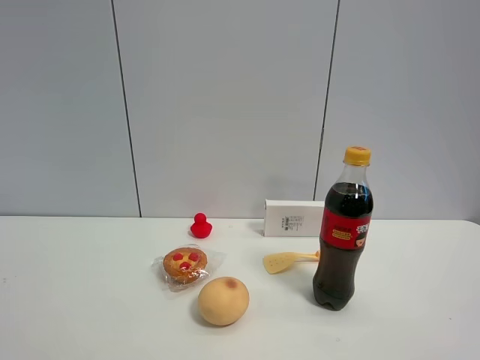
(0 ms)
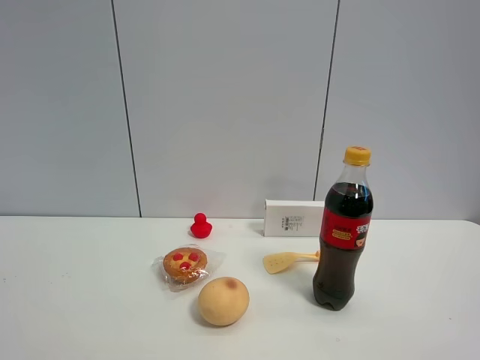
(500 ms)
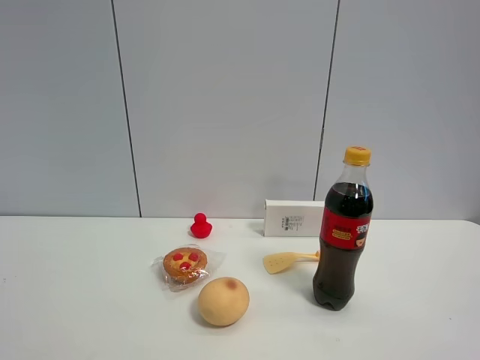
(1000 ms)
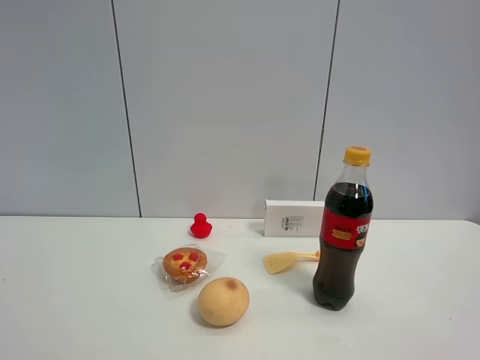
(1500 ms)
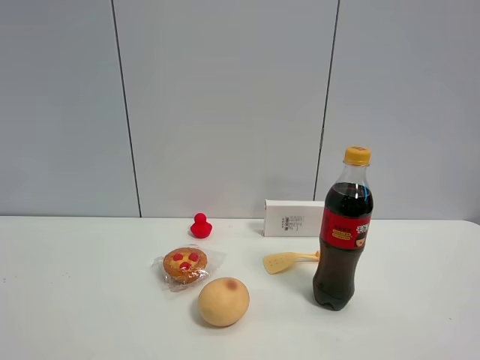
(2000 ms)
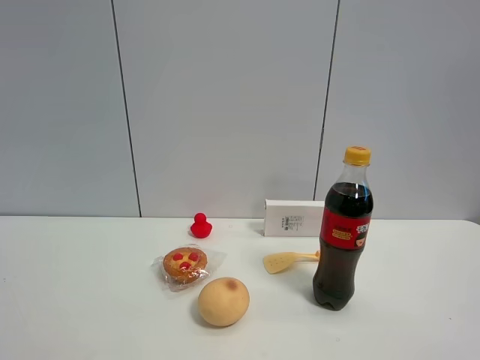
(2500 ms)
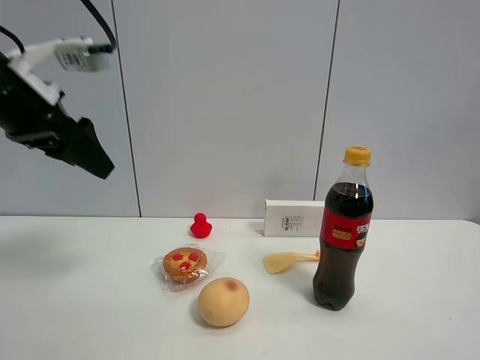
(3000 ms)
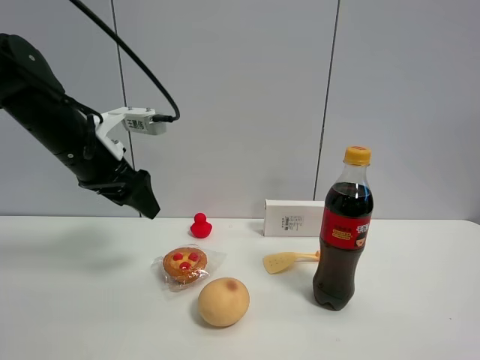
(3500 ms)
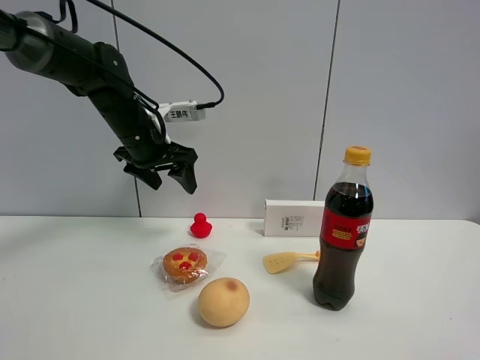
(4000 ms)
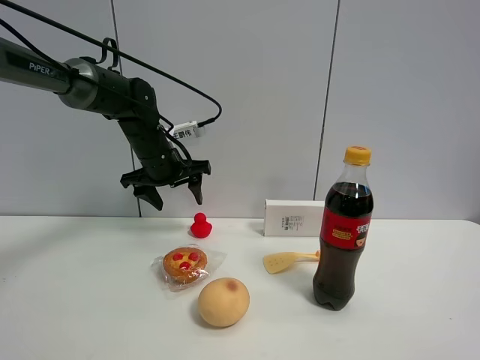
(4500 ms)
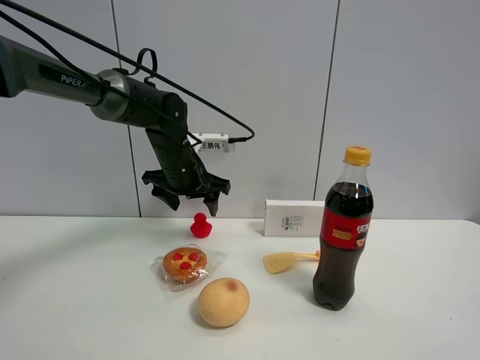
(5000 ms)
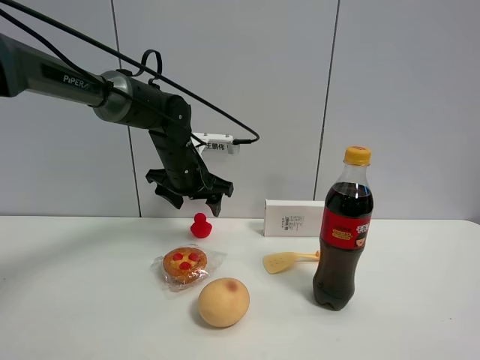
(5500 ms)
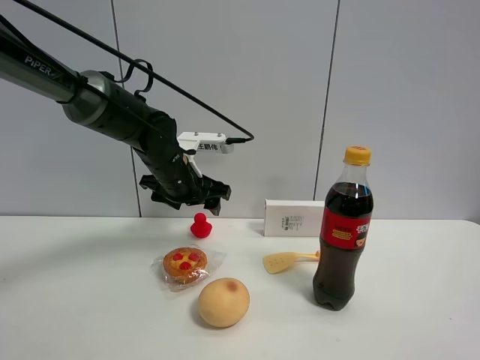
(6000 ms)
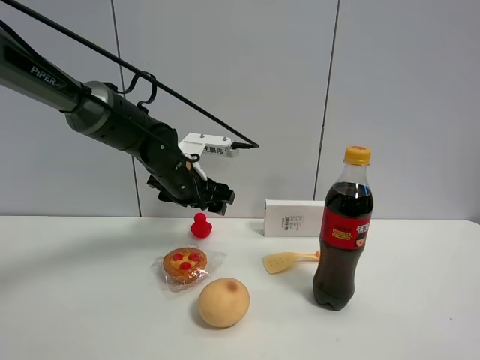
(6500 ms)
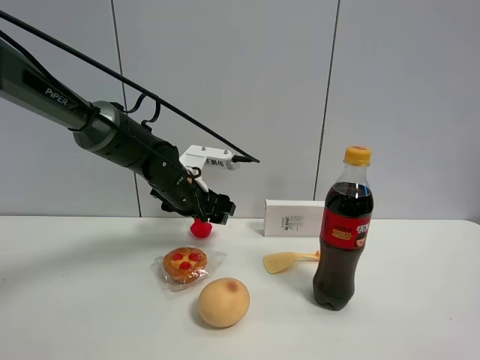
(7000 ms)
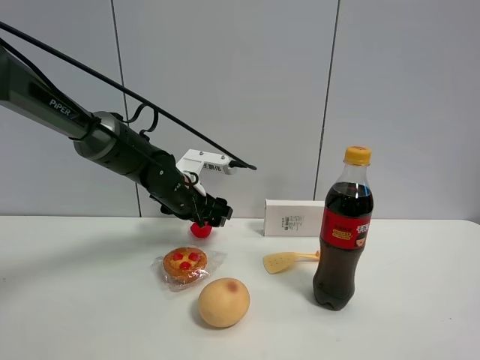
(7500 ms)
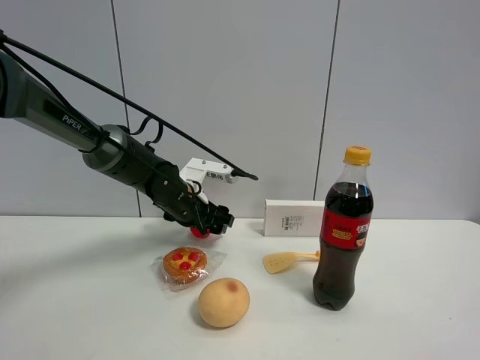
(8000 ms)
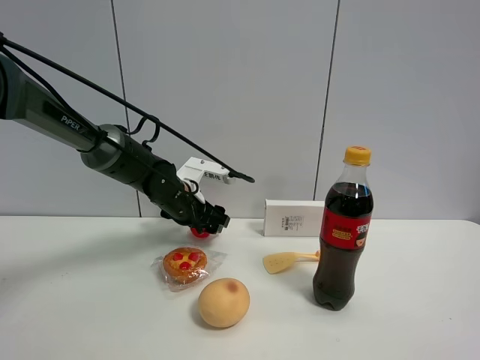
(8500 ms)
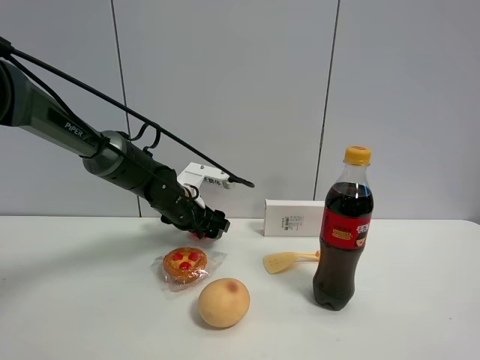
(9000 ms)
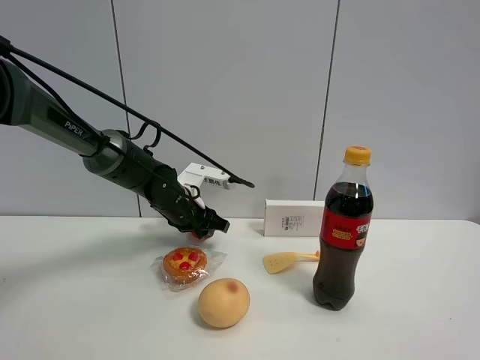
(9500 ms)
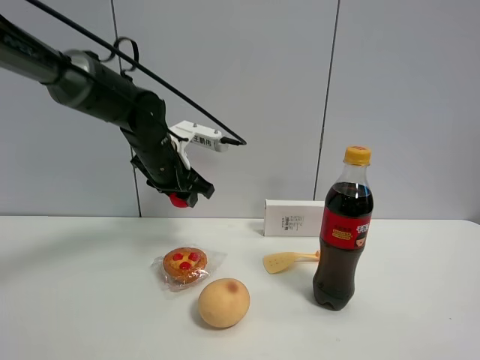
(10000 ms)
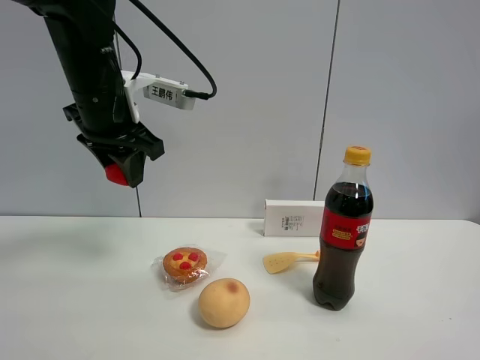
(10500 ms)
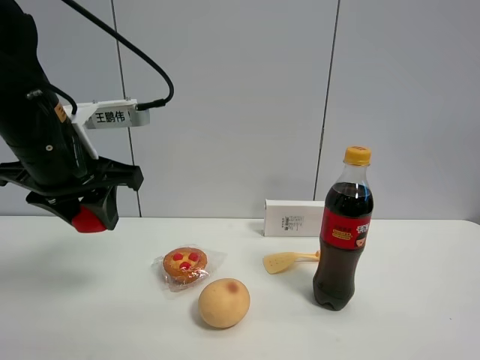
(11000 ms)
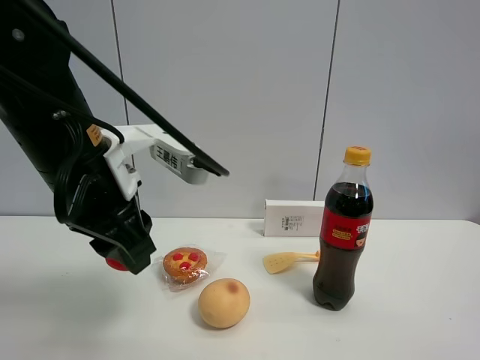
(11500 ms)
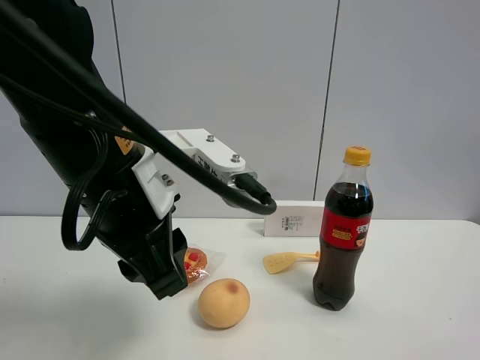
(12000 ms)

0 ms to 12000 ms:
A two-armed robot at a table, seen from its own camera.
Task of the whole recording: the gripper move the object.
Step, 0 ms to 9500 ms: Grasp the red duck with the left gripper.
2000 ms to 4000 ms: The left gripper travels forward by about 50 cm.
4000 ms to 6000 ms: The left gripper is displaced downward and to the right by approximately 10 cm.
6000 ms to 8000 ms: The left gripper heads downward, covering roughly 5 cm.
8000 ms to 10000 ms: The left gripper heads upward, covering roughly 10 cm, and closes its fingers.
10000 ms to 12000 ms: The left gripper shifts about 25 cm backward.

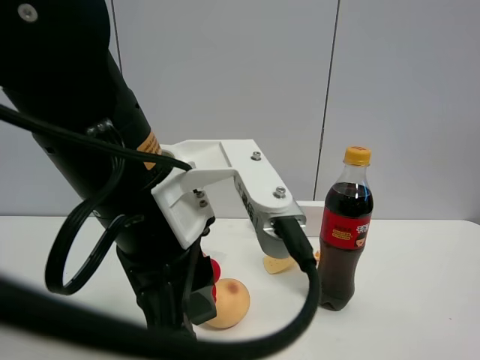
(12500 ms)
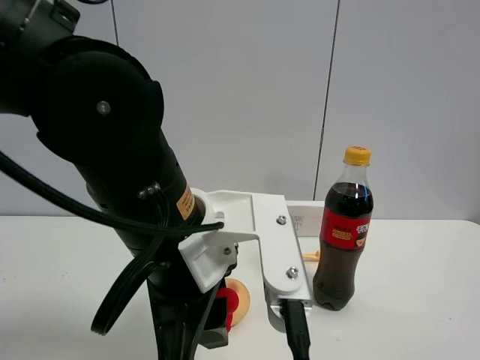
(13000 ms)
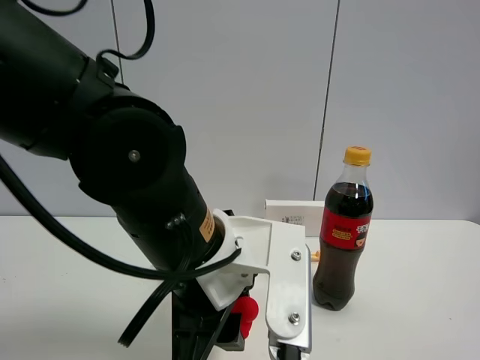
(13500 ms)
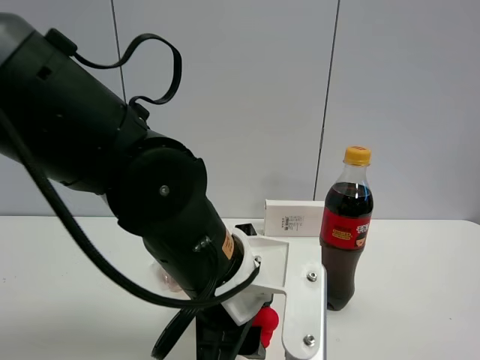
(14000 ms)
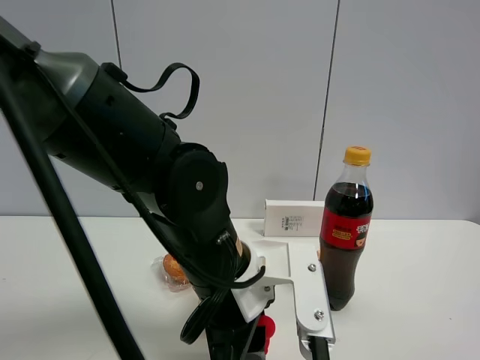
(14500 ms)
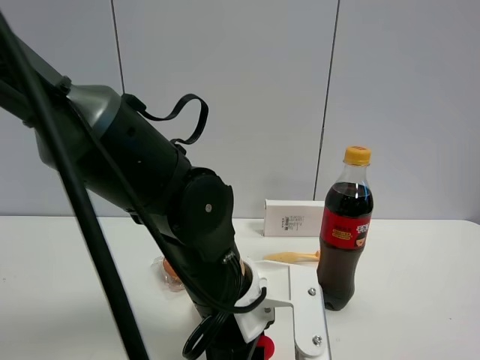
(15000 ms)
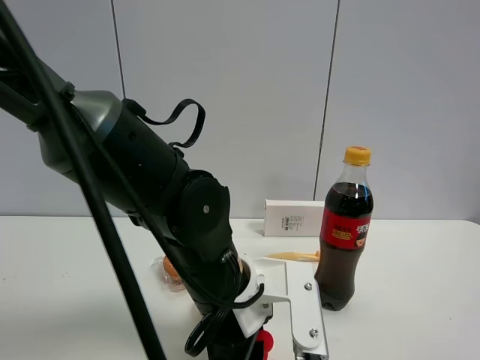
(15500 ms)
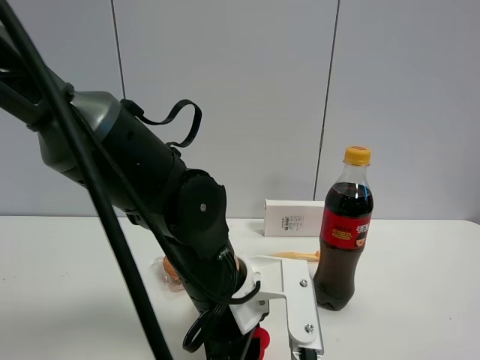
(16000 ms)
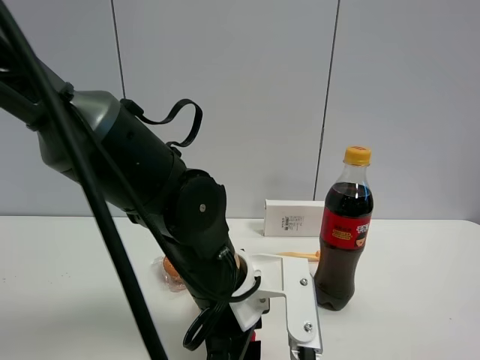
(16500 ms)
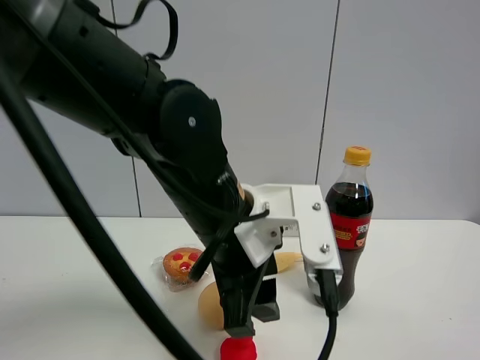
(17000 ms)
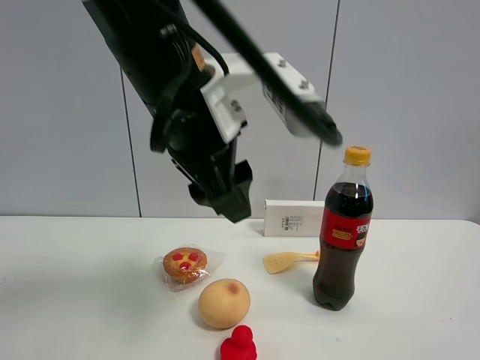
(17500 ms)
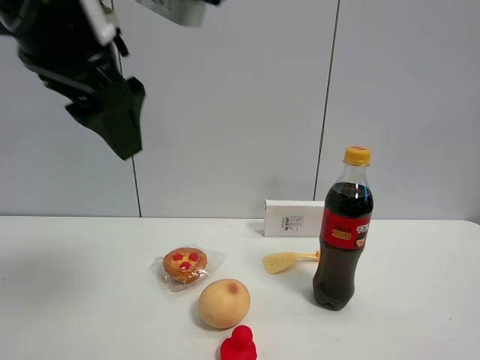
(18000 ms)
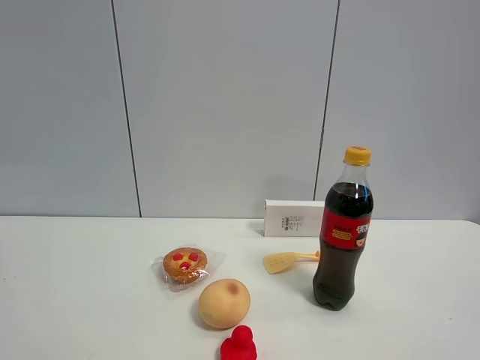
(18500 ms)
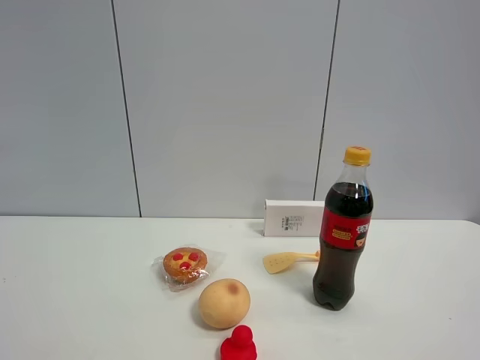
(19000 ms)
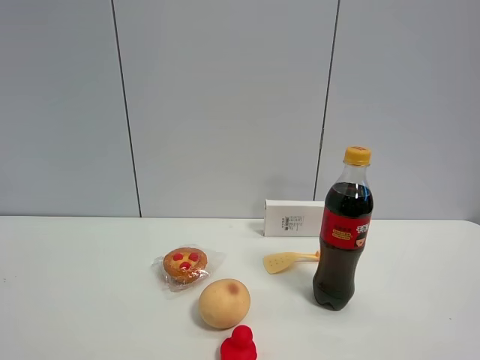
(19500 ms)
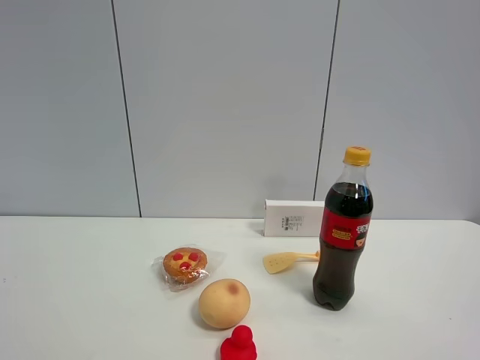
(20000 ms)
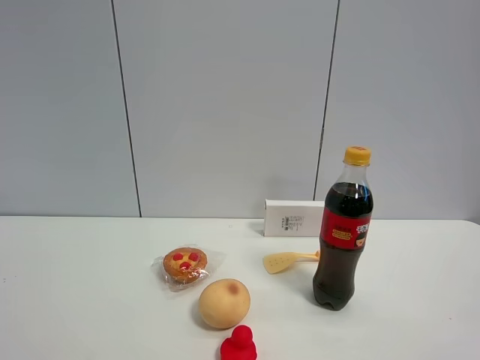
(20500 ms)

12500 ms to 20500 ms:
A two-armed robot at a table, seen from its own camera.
Task of the whole recording: the gripper move the object.
Step, 12500 ms to 16500 ms: Place the red duck on the table with the left gripper.
12500 ms to 14500 ms: The left gripper is displaced downward by about 10 cm.
14500 ms to 16500 ms: The left gripper opens up.
16500 ms to 18500 ms: The left gripper shifts approximately 40 cm upward and to the left, and opens up.

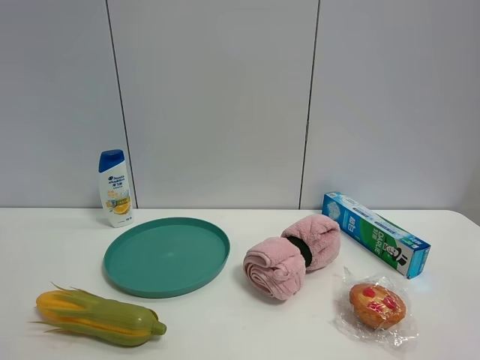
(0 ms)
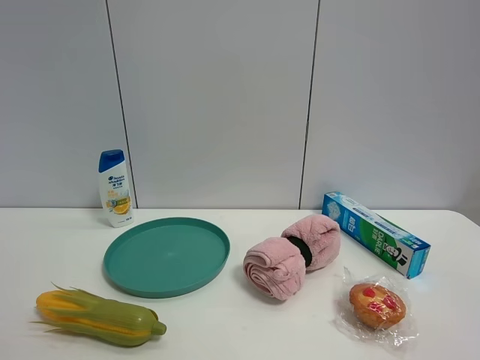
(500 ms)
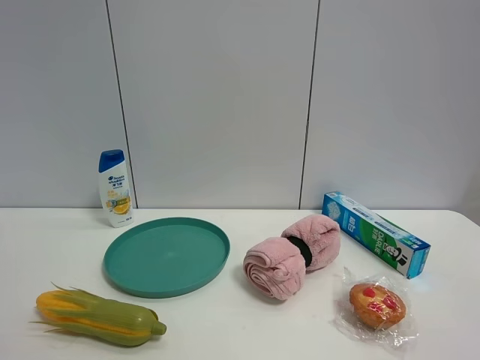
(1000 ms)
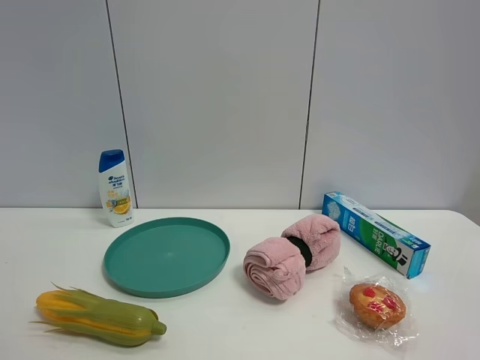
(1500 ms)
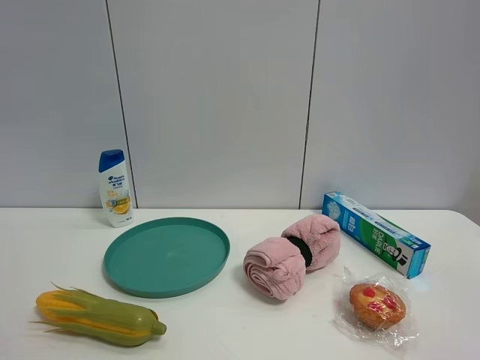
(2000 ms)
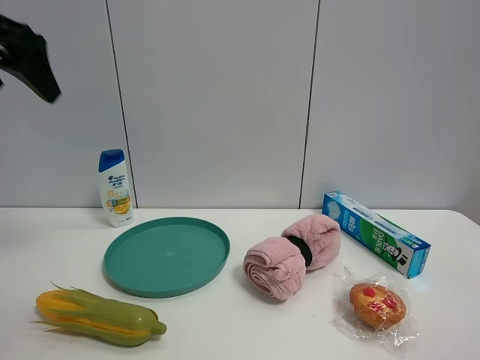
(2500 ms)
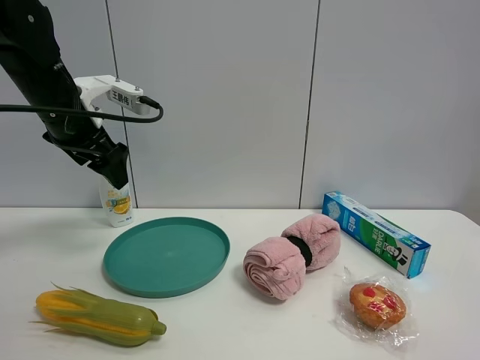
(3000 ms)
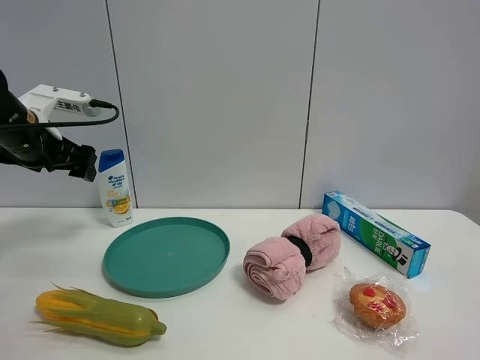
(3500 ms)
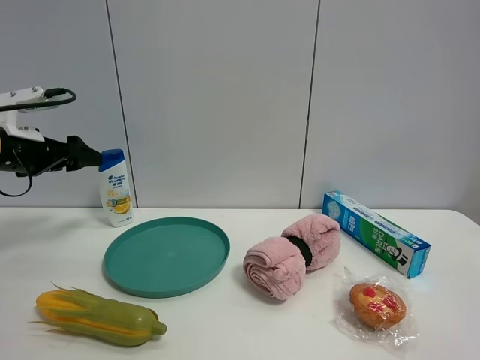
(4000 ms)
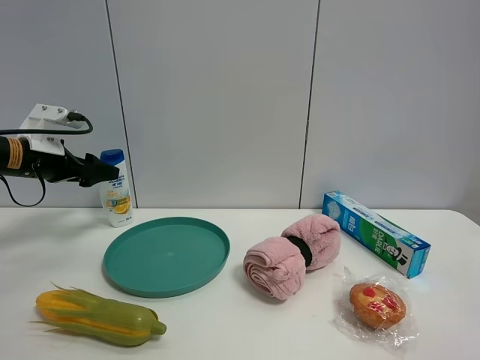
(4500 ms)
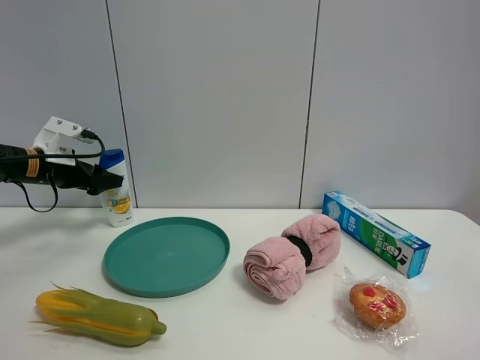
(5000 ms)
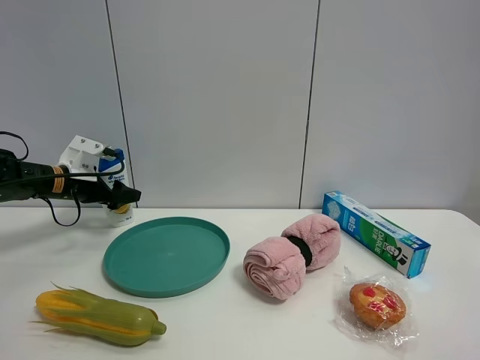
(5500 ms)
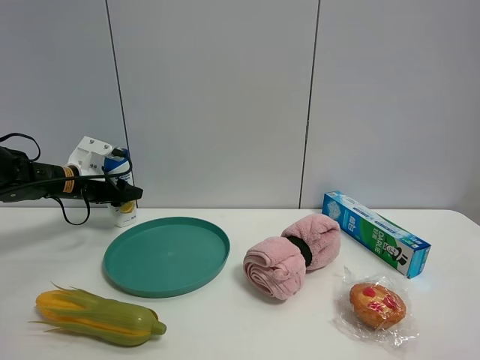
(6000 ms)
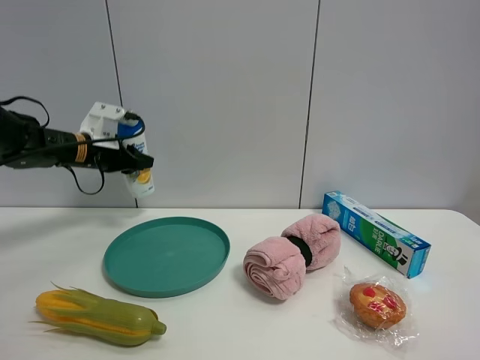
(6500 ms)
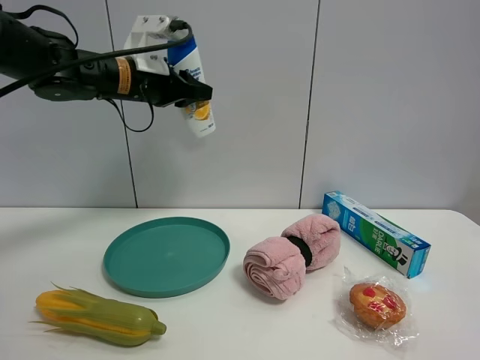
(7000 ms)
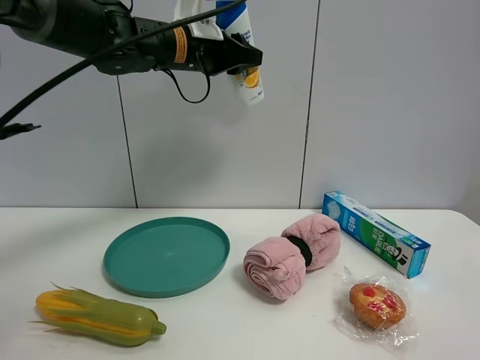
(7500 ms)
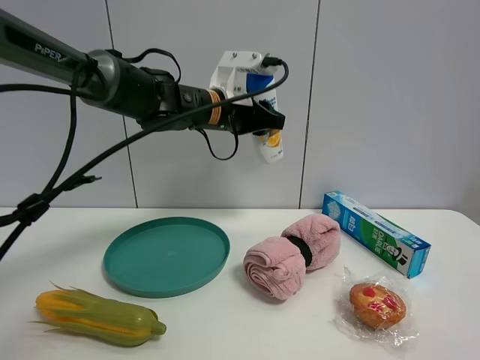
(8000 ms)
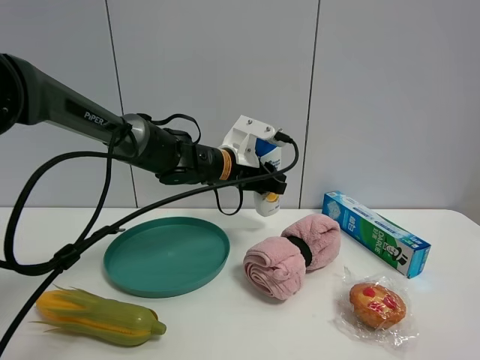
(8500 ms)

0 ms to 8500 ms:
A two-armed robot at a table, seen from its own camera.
Task of the whole recording: the gripper move the object.
Step, 0 ms to 6000 ms: Grasp the shampoo with the left gripper.
2000 ms to 4000 ms: The left gripper travels downward and forward by some 40 cm.
4000 ms to 6500 ms: The left gripper goes approximately 10 cm forward and to the right, and closes up.
6500 ms to 8500 ms: The left gripper heads to the right, covering approximately 25 cm.
